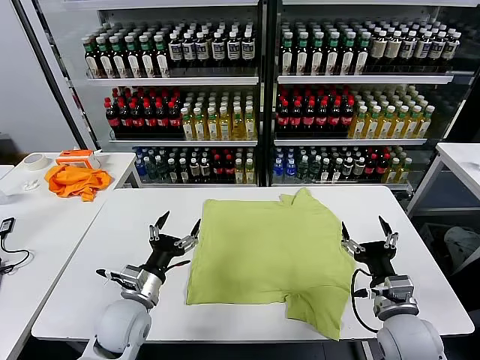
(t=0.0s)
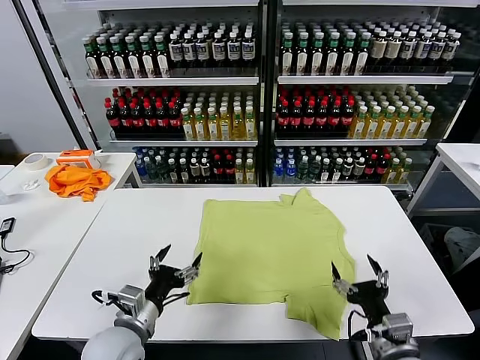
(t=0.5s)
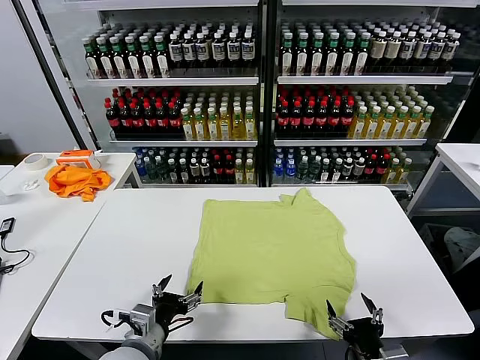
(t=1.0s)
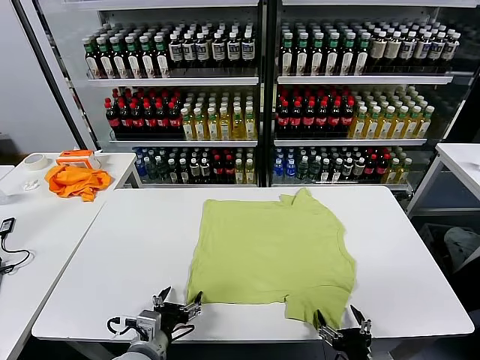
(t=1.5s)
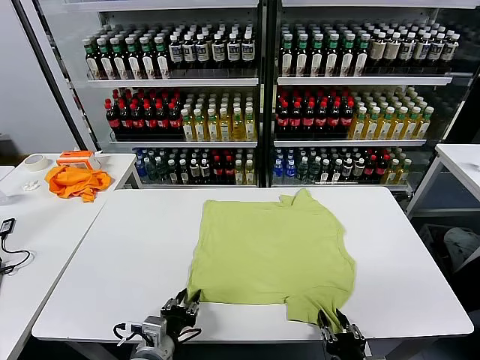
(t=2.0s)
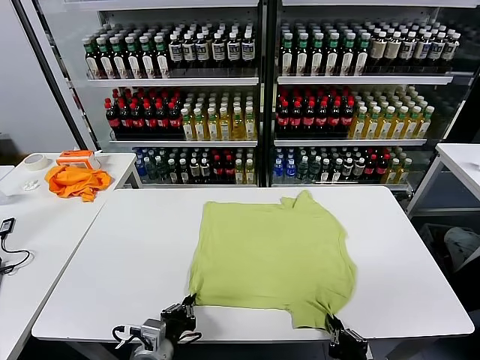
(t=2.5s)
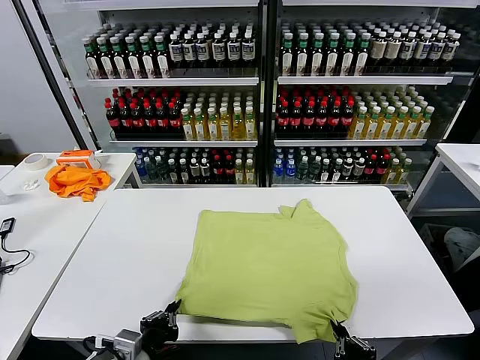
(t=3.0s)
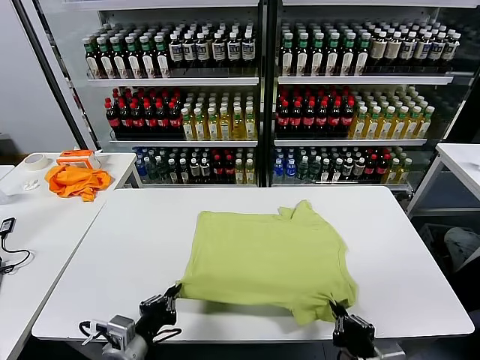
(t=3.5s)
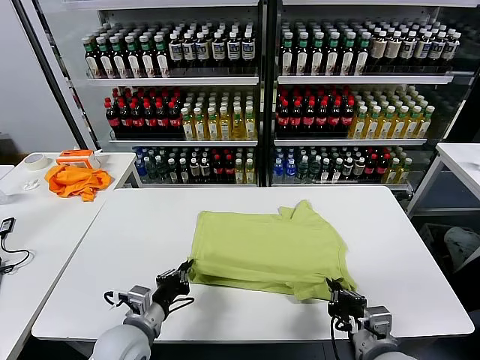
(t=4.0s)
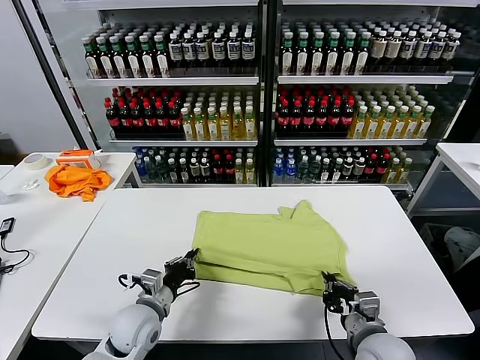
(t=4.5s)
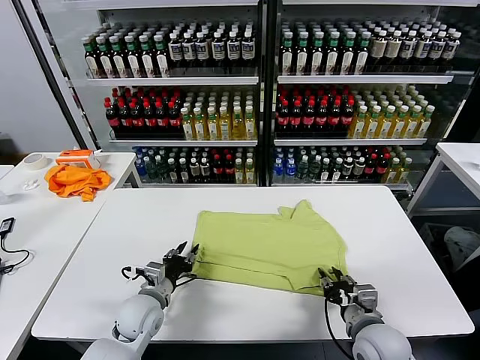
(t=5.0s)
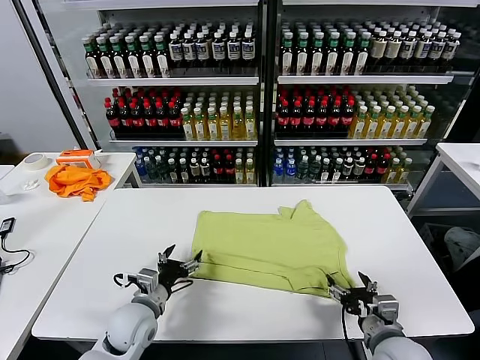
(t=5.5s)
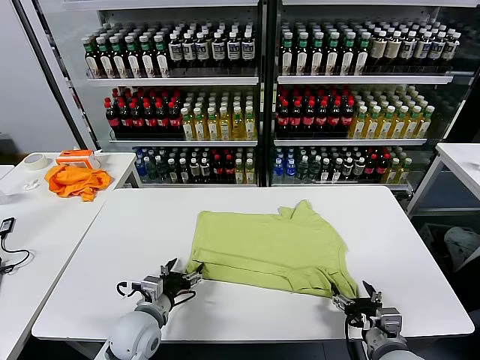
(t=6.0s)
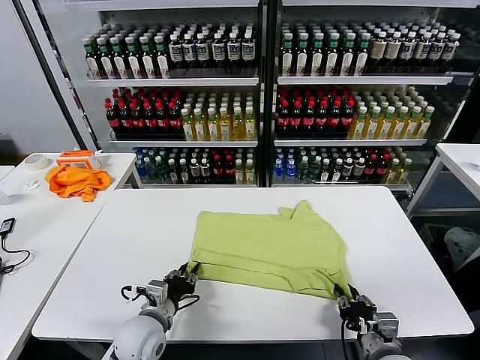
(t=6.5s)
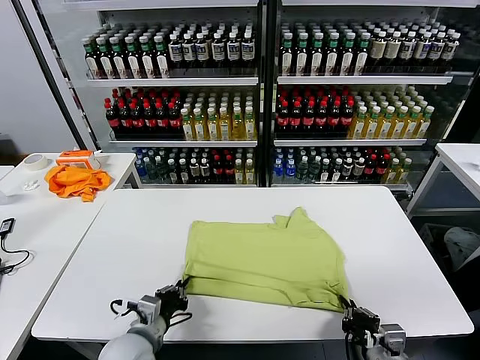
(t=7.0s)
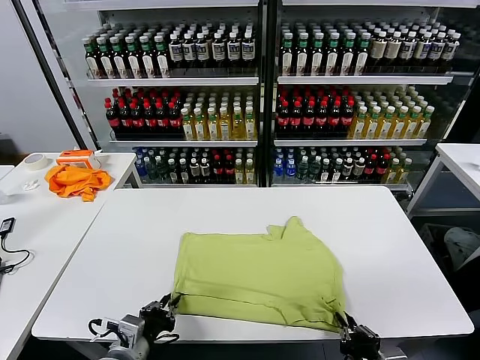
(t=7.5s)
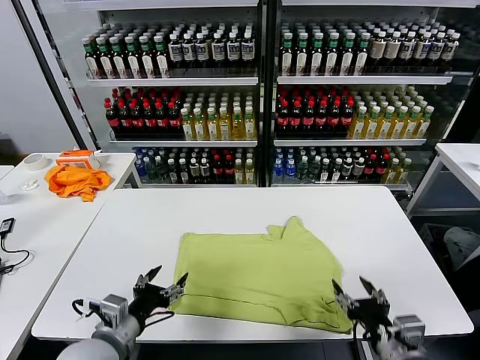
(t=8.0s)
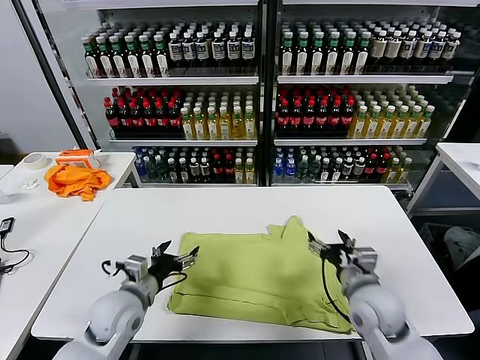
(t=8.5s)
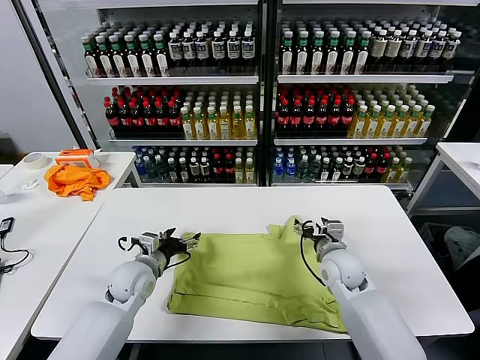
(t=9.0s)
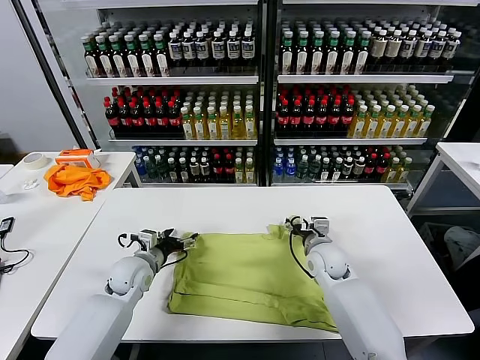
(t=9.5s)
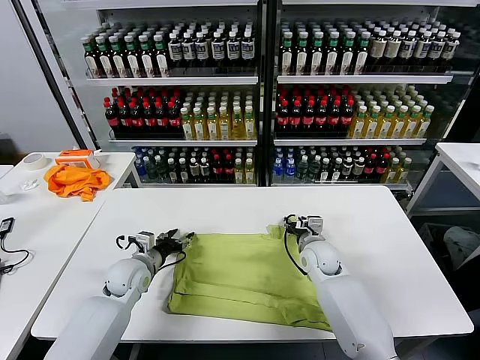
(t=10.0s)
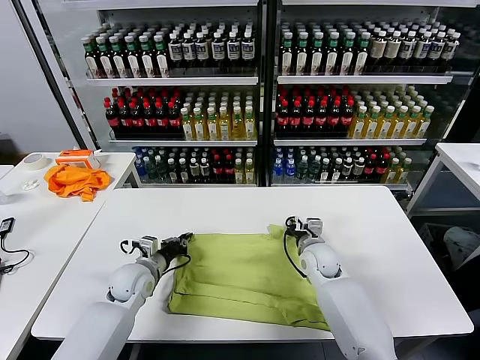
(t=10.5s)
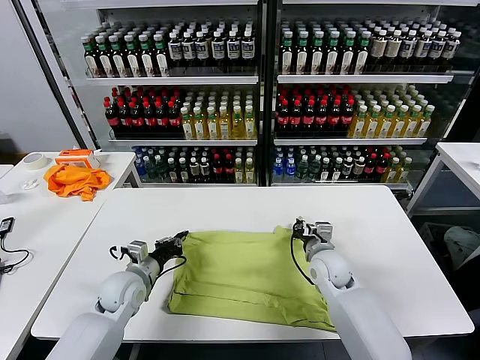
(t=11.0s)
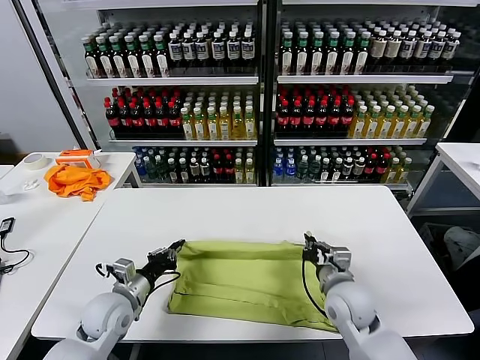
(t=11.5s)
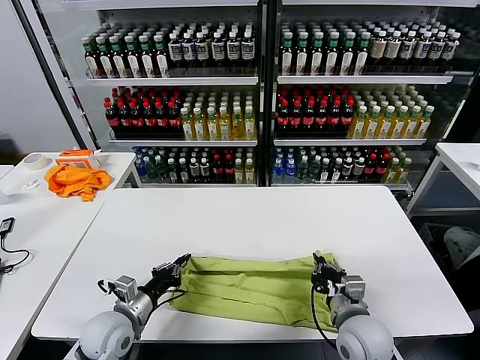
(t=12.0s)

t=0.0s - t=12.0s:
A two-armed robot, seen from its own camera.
Task of the whole recording: fold and organize the clothes.
Step, t=0.0s - t=2.0s: use both grippers simultaneously to clamp the lower edge of the clothing fabric.
Step, t=2.5s - t=4.5s: use both grippers to drag the lower edge of the fabric forward and fold it over the upper edge.
Step, t=5.5s - t=7.5s: Drag the clothes downward with both gripper.
Step, t=8.0s - t=10.5s: use both grippers simultaneously to clamp the upper edge of the clothing fabric.
t=2.0s - t=4.0s: The right gripper heads forward and upward, covering about 10 cm; the left gripper moves forward, roughly 5 cm.
t=4.0s - t=6.0s: The right gripper moves approximately 5 cm, and opens up. The left gripper opens up.
t=6.0s - t=8.0s: The right gripper is displaced upward by some 10 cm, and closes and opens again; the left gripper heads upward and backward, covering approximately 10 cm, and closes and opens again.
t=8.0s - t=10.0s: The right gripper travels forward by about 30 cm. The left gripper travels forward and downward by roughly 20 cm.
t=10.0s - t=12.0s: The right gripper goes roughly 20 cm backward, and closes its fingers. Meanwhile the left gripper goes some 15 cm backward, and closes its fingers.

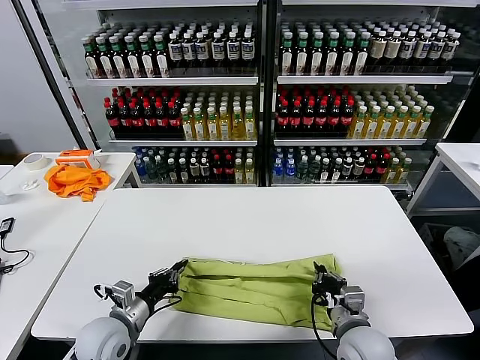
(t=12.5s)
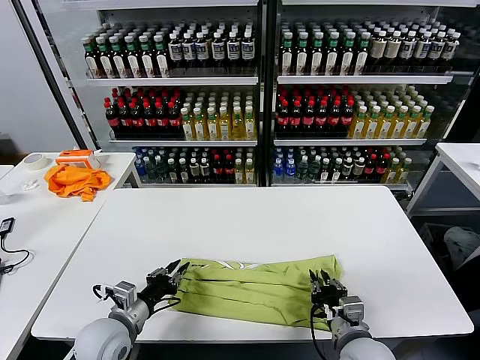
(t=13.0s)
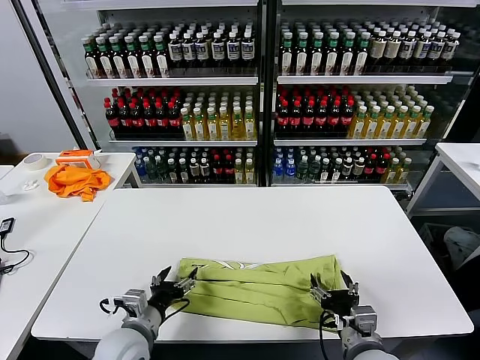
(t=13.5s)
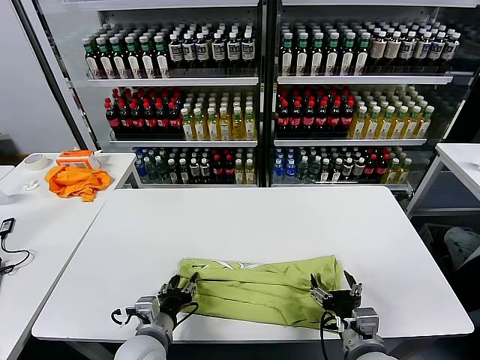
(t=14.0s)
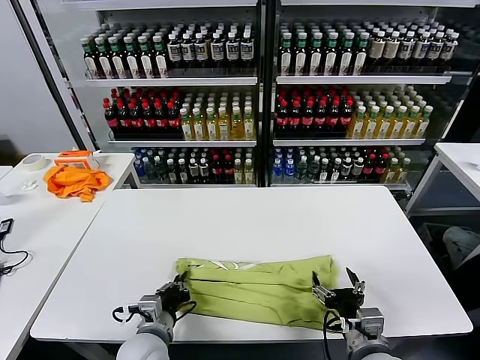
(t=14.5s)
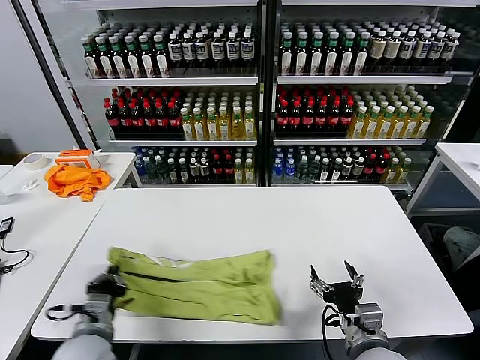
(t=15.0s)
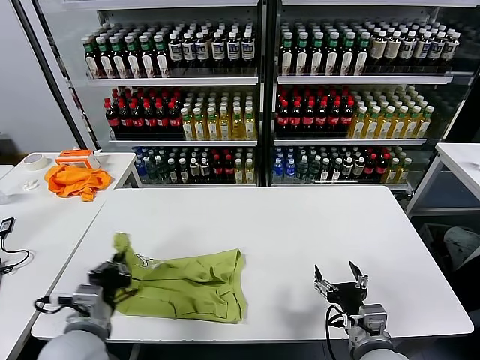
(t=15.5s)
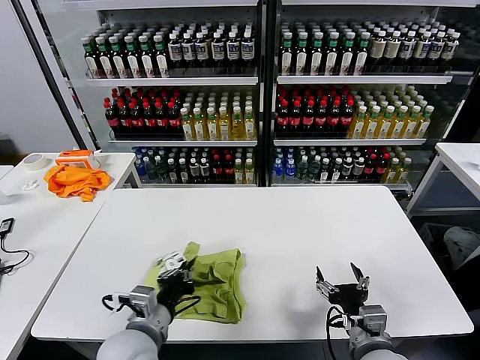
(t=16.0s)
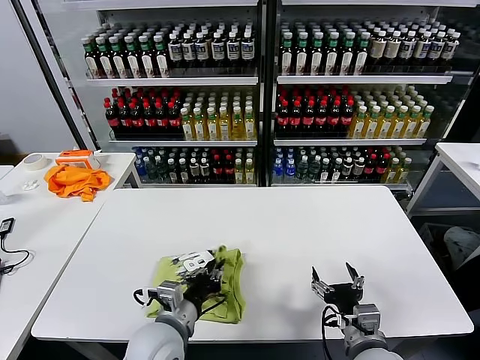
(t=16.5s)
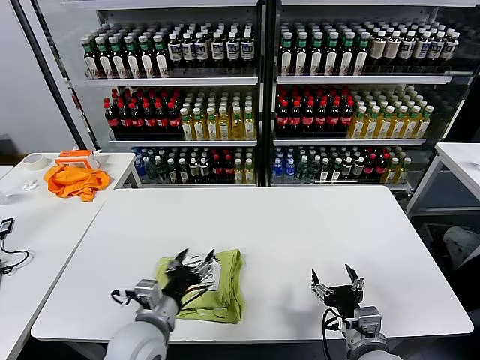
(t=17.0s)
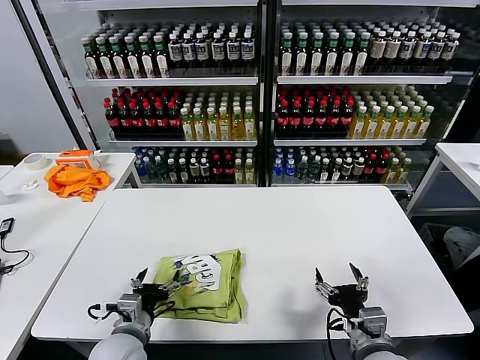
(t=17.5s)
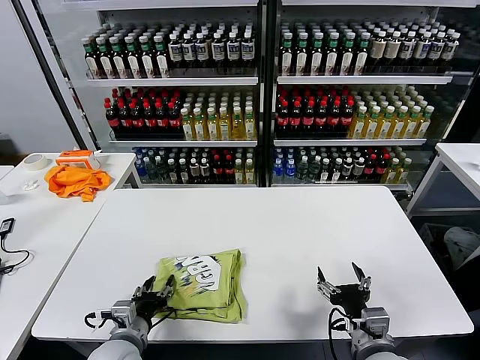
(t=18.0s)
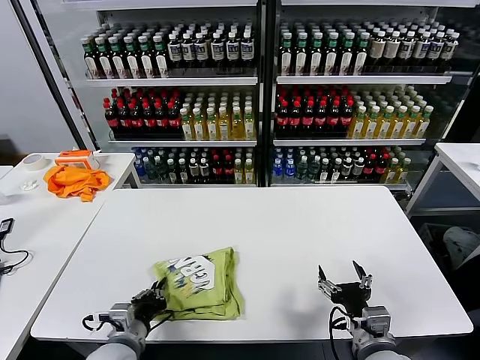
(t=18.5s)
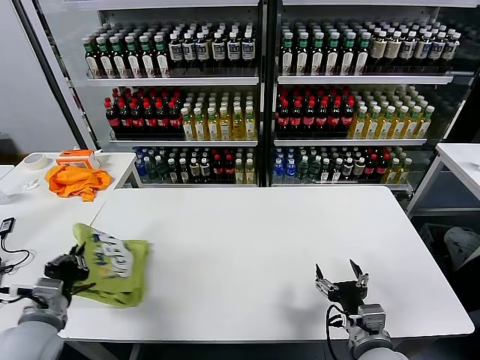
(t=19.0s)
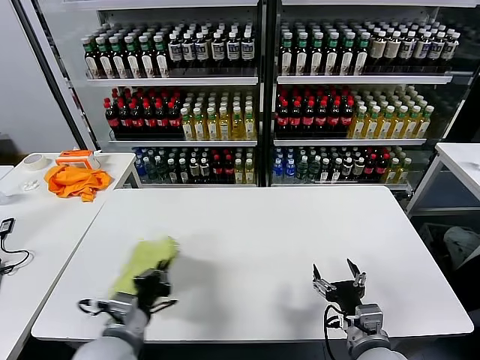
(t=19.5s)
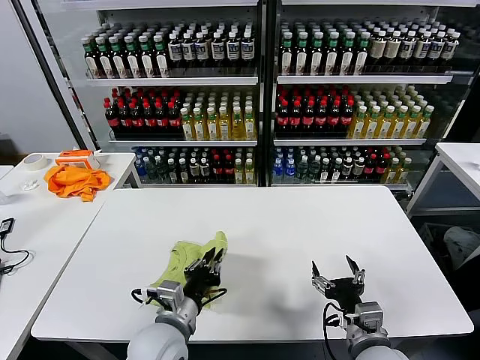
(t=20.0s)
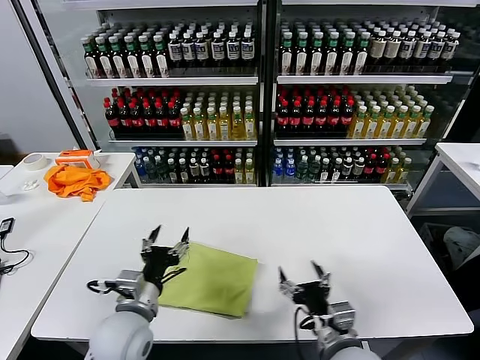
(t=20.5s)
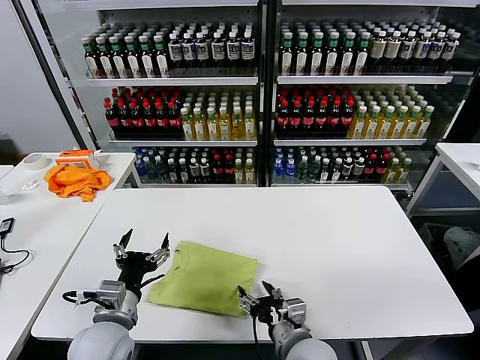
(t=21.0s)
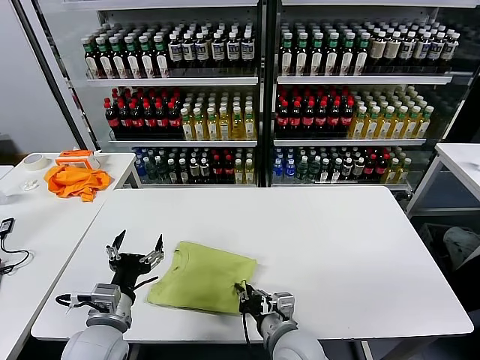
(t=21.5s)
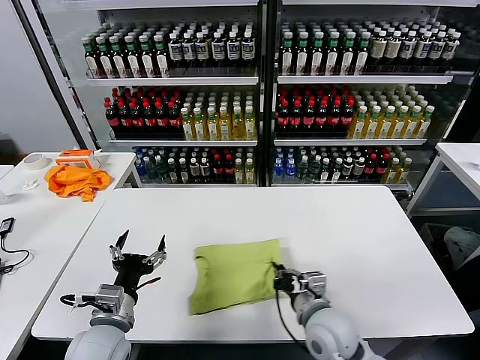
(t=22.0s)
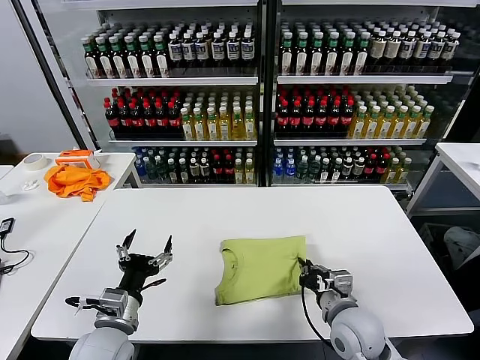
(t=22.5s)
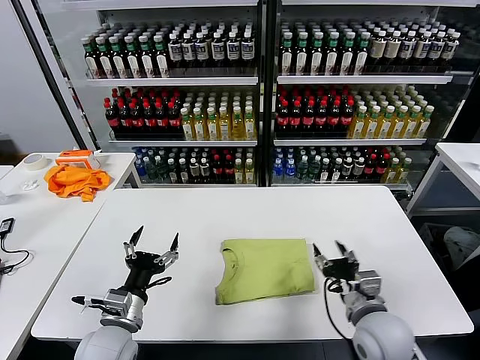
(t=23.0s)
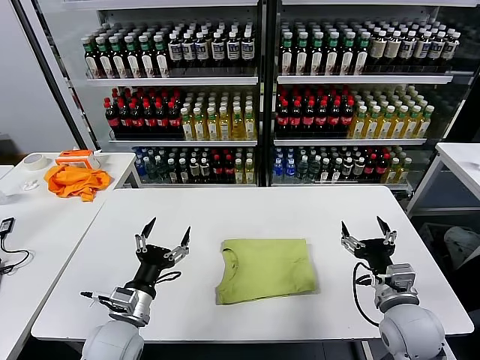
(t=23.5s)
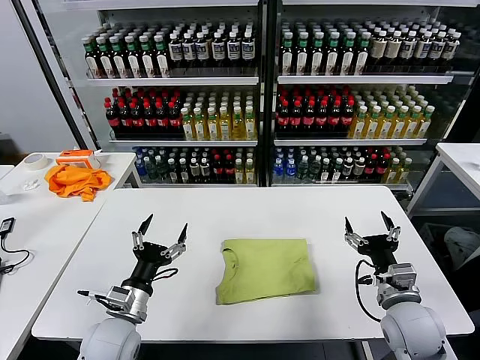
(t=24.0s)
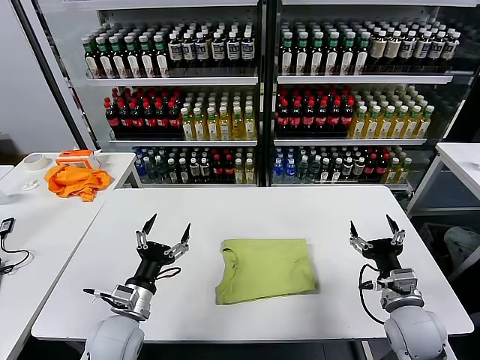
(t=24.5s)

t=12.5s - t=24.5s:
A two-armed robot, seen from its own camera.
Task of the whole recording: fold and organize the clothes.
Step, t=13.5s - t=14.0s: use the left gripper to clamp the left edge of the fabric.
Step, t=14.5s - t=16.5s: use the left gripper to drag the left edge of the fabric to the left and folds it over the right edge.
Step, t=17.0s - t=20.0s: Flip the folded clothes over with left gripper.
Step, t=20.5s - t=22.5s: Drag the clothes to the center of the table.
t=12.5s - t=14.5s: The left gripper travels to the right by roughly 10 cm, and opens and closes again; the right gripper ends up approximately 5 cm from where it was, and opens up.
t=14.5s - t=16.5s: The left gripper shifts roughly 5 cm upward, and travels to the left and back again, roughly 10 cm each way.
t=16.5s - t=18.5s: The left gripper goes about 10 cm to the left and downward, and opens and closes again.
t=18.5s - t=20.5s: The left gripper moves left and right over some 20 cm, changing direction 2 times, and opens its fingers; the right gripper is displaced to the left by approximately 5 cm.
t=20.5s - t=22.5s: The left gripper ends up some 5 cm from where it was; the right gripper travels forward by some 10 cm, travels to the left and back again, about 10 cm each way, and closes up.
t=22.5s - t=24.5s: The right gripper heads to the right, covering roughly 10 cm, and opens.
